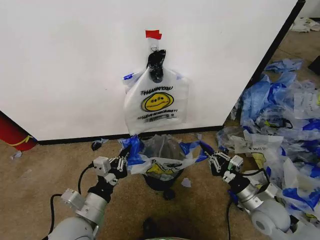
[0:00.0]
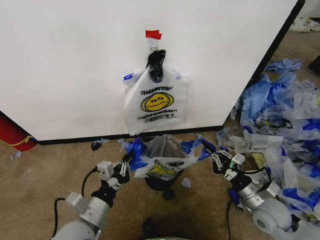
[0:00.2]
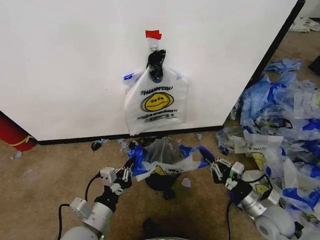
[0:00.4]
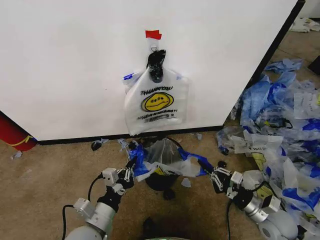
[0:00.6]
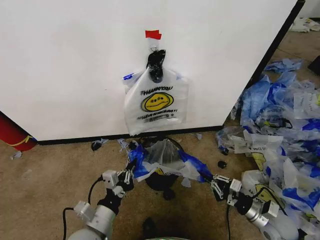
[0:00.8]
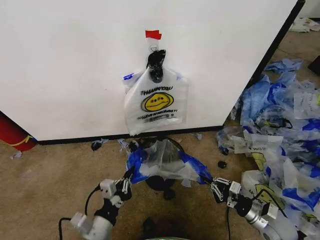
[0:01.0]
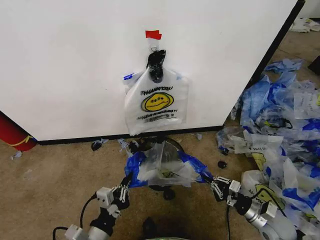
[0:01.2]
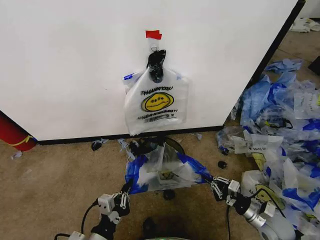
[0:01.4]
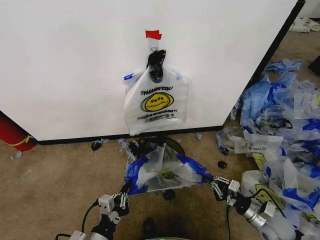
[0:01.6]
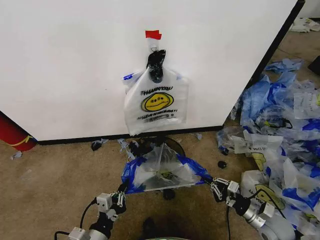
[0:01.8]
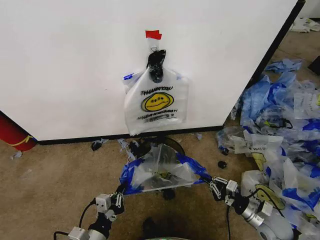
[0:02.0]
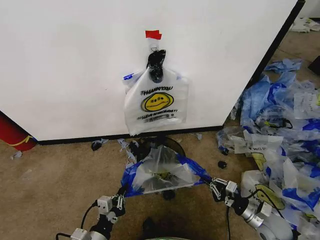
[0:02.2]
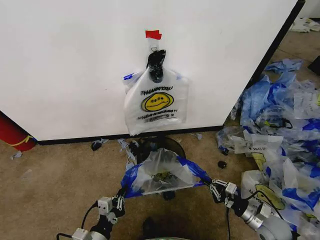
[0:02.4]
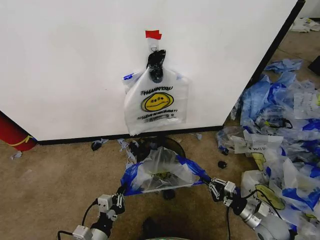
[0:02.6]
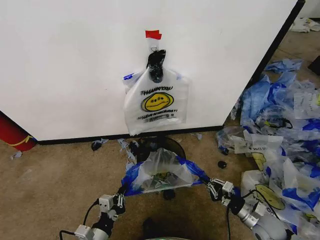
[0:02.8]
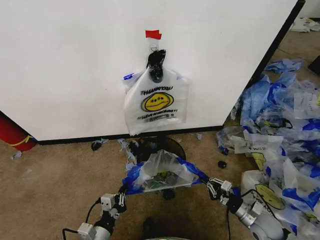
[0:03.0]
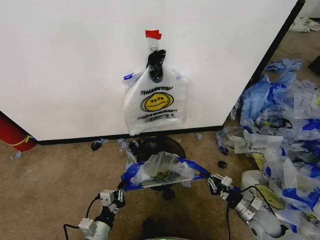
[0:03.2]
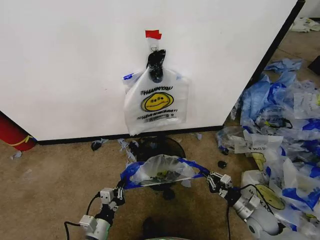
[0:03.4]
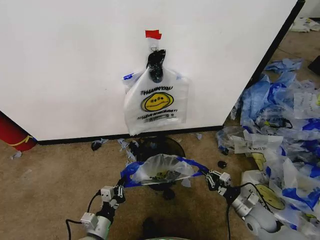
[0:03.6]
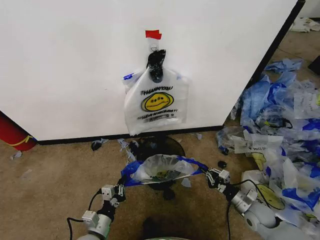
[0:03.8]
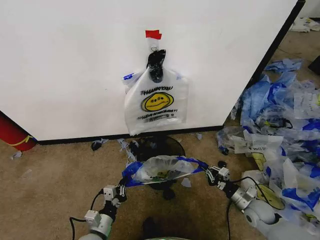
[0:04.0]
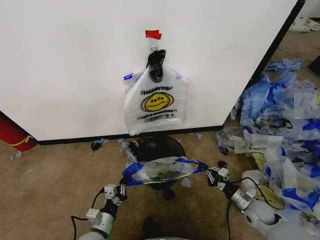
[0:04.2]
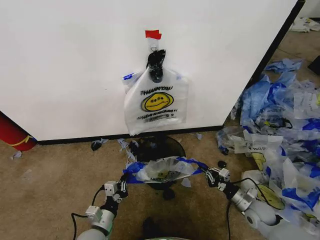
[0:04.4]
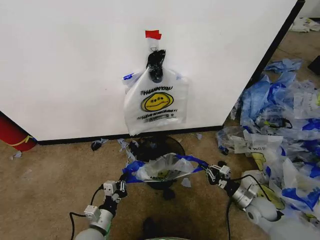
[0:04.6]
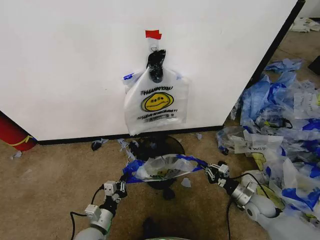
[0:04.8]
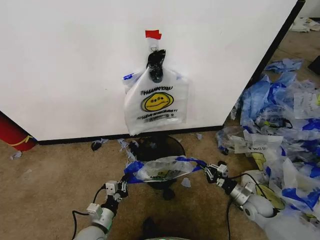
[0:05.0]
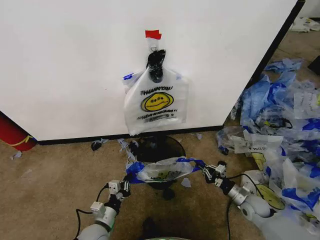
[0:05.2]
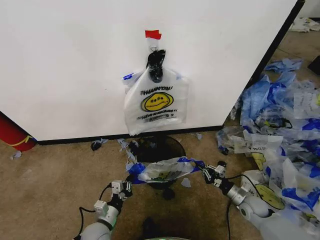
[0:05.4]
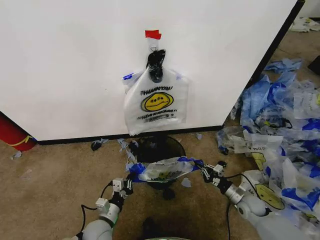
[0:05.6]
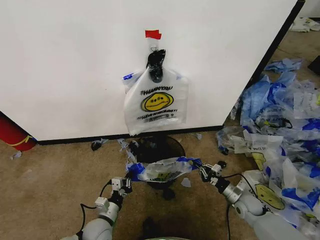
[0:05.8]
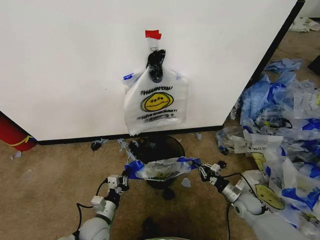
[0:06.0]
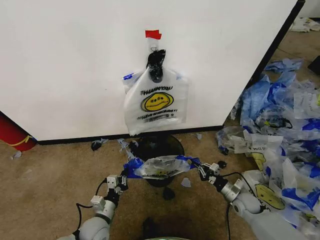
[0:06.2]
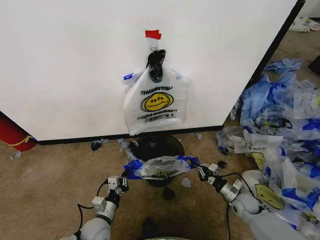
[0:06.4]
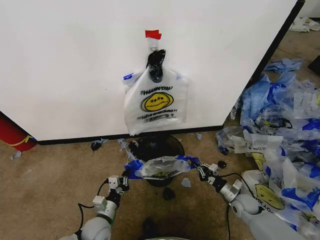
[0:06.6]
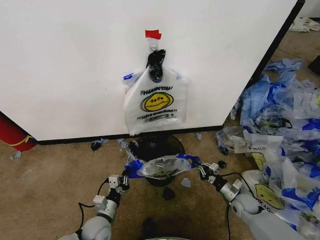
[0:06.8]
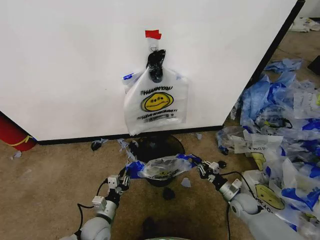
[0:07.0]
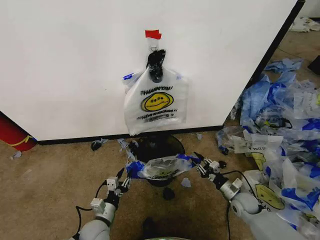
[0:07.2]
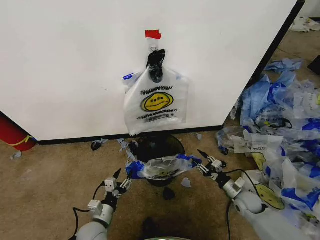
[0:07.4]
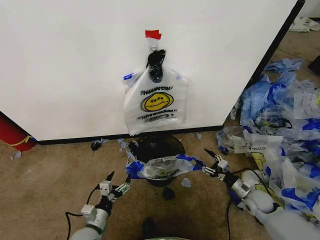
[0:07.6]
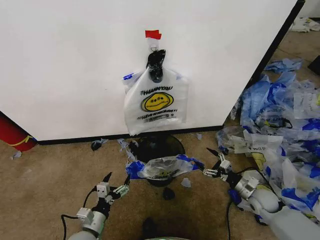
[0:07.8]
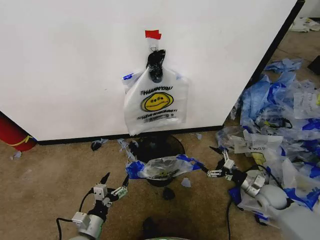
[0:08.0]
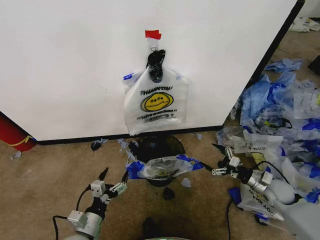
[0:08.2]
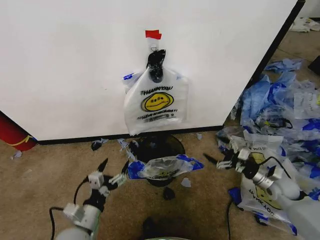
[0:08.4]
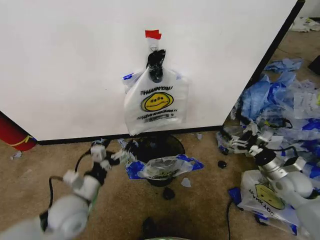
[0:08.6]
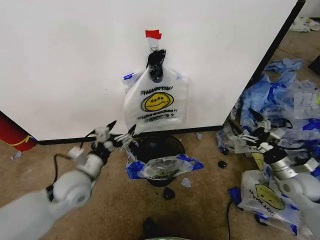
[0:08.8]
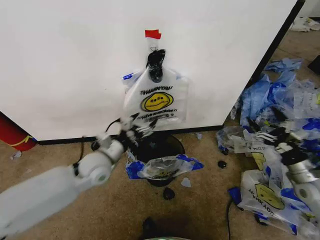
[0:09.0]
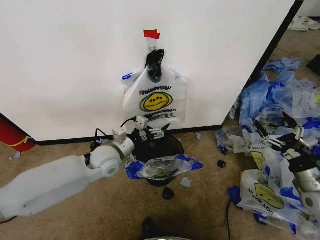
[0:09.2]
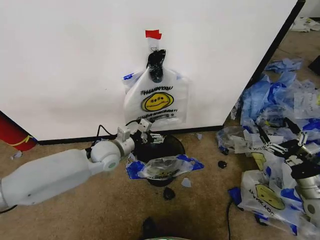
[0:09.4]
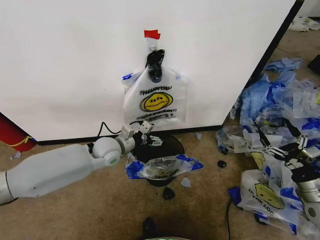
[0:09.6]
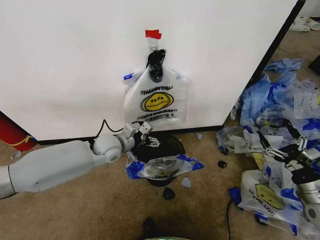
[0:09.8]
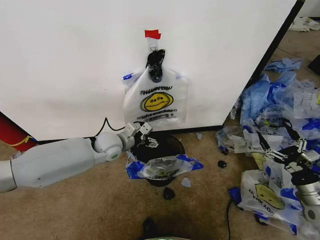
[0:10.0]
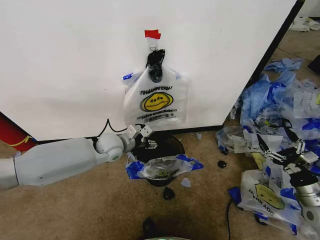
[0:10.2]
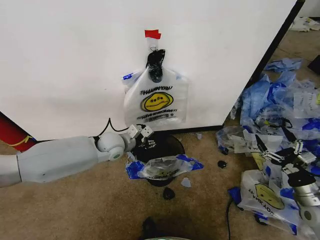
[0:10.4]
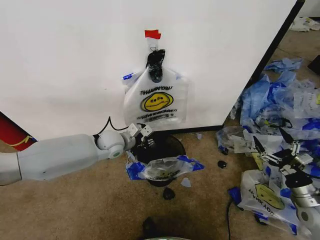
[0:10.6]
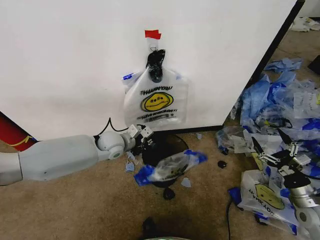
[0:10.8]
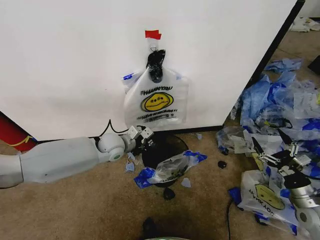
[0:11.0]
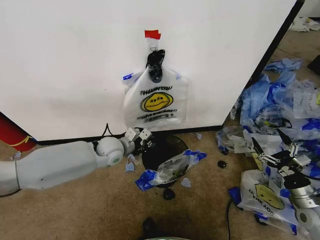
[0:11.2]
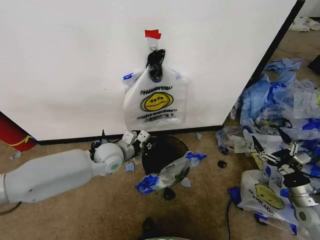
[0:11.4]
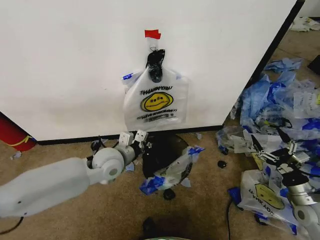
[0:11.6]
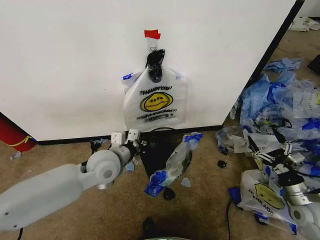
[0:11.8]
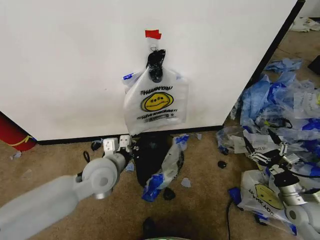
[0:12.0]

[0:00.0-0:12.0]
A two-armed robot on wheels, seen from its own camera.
Task of the whole recording: Pick up the garbage bag from the wall and place it over the trash bin.
0:00.0 to 0:01.6: The right gripper is displaced downward and to the right by about 10 cm. The left gripper travels downward and backward by some 10 cm.
0:01.6 to 0:03.0: The left gripper moves downward, approximately 5 cm.
0:03.0 to 0:04.4: The left gripper shifts approximately 5 cm forward.
0:04.4 to 0:06.0: The right gripper changes place by about 5 cm.
0:06.0 to 0:07.6: The left gripper opens its fingers; the right gripper opens up.
0:07.6 to 0:09.0: The left gripper is displaced upward and forward by roughly 25 cm. The right gripper goes approximately 20 cm upward and to the right.
0:09.0 to 0:10.4: The left gripper travels forward by approximately 10 cm, and closes up. Meanwhile the right gripper is displaced backward by approximately 5 cm.
0:10.4 to 0:12.0: The left gripper travels backward by some 15 cm, and closes its fingers.

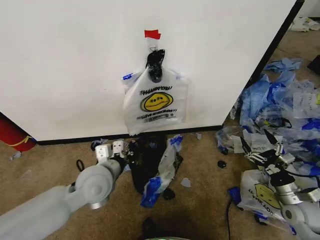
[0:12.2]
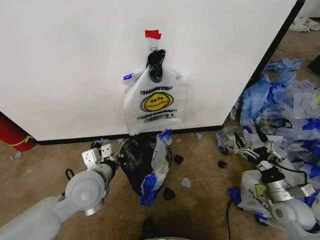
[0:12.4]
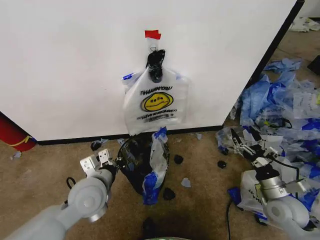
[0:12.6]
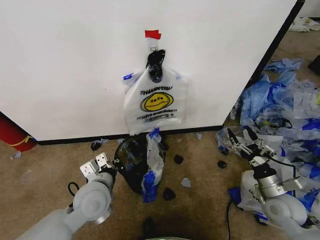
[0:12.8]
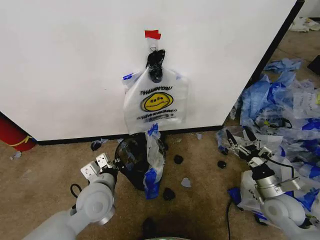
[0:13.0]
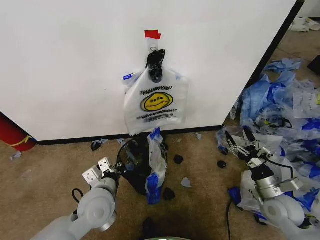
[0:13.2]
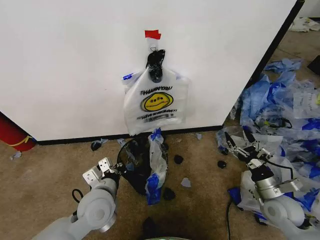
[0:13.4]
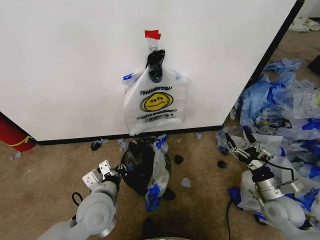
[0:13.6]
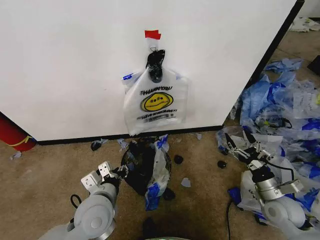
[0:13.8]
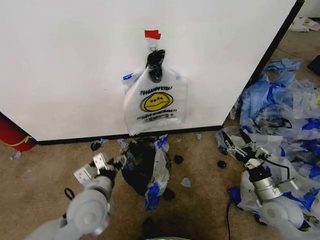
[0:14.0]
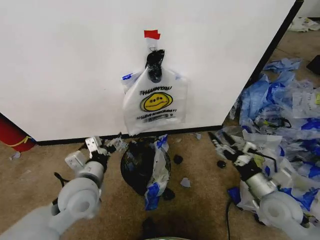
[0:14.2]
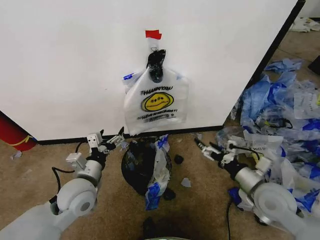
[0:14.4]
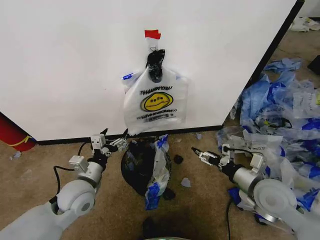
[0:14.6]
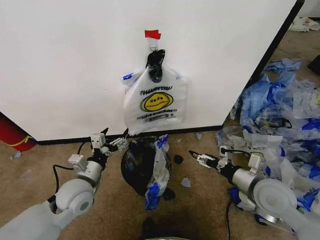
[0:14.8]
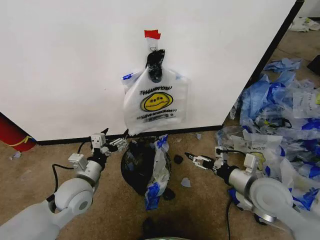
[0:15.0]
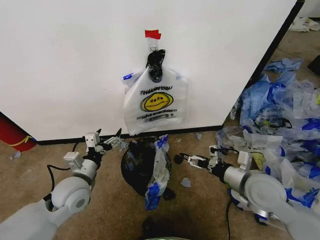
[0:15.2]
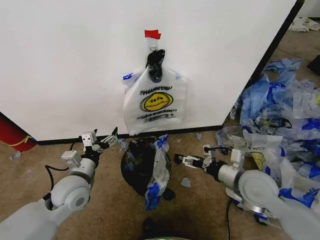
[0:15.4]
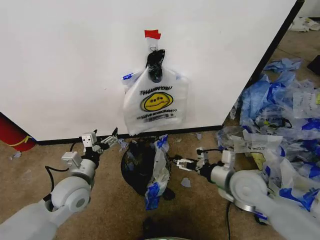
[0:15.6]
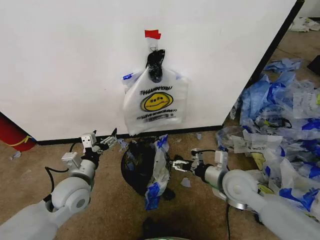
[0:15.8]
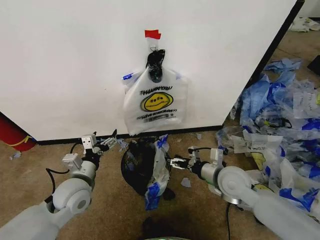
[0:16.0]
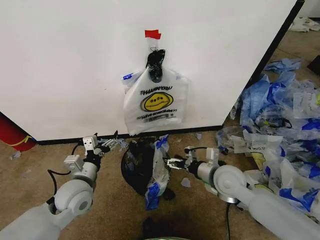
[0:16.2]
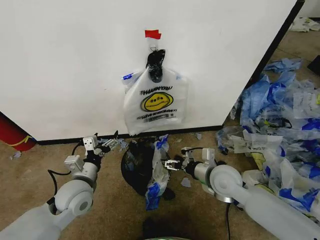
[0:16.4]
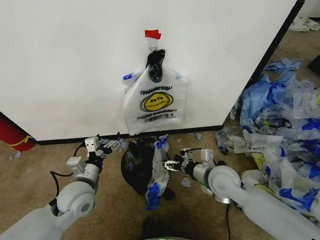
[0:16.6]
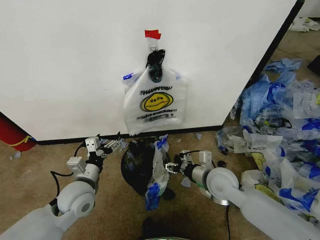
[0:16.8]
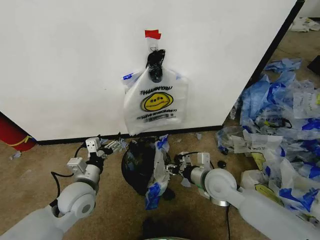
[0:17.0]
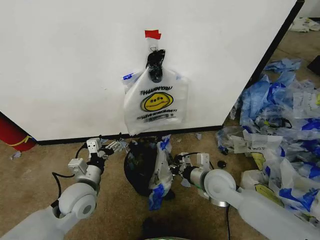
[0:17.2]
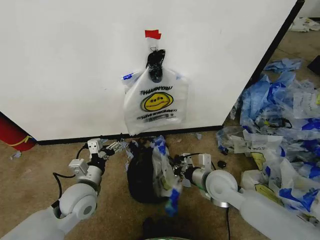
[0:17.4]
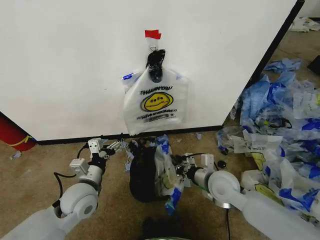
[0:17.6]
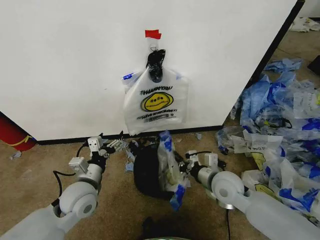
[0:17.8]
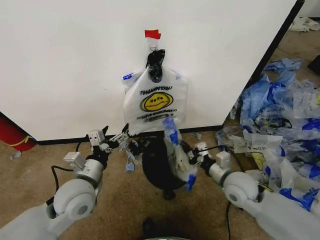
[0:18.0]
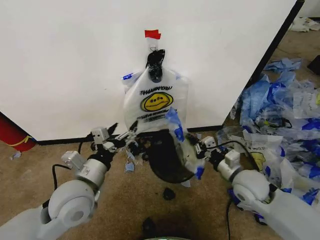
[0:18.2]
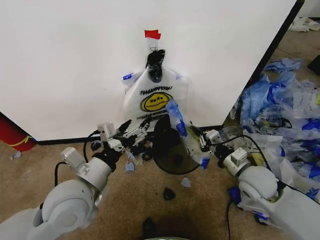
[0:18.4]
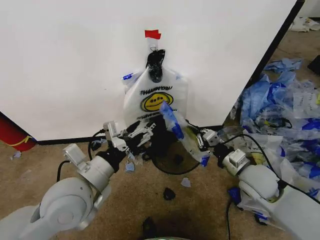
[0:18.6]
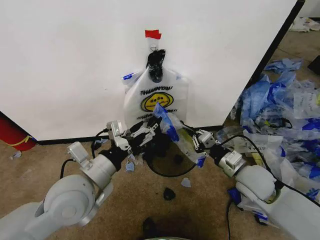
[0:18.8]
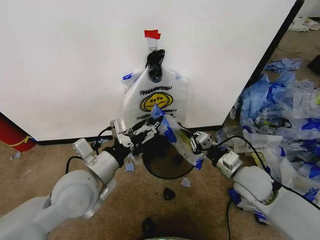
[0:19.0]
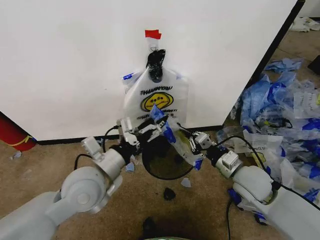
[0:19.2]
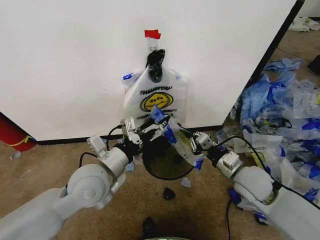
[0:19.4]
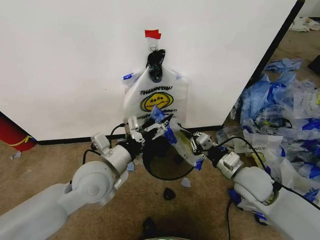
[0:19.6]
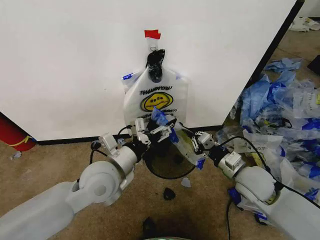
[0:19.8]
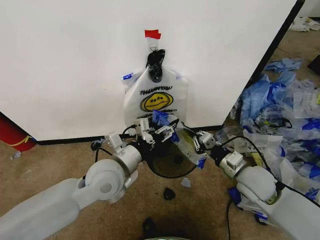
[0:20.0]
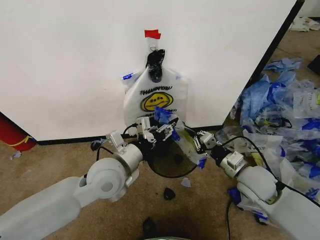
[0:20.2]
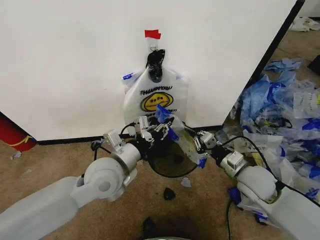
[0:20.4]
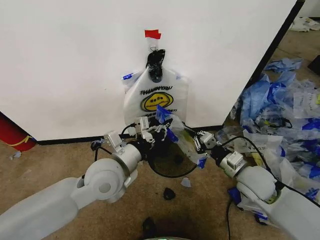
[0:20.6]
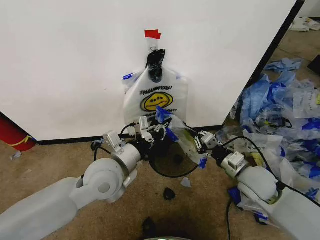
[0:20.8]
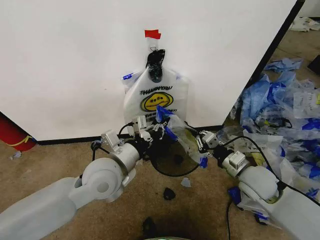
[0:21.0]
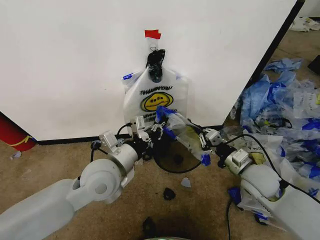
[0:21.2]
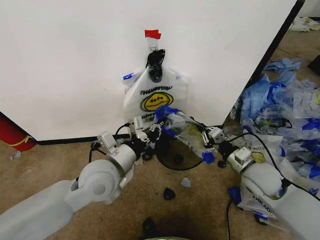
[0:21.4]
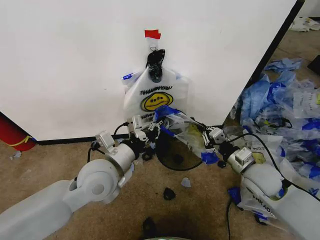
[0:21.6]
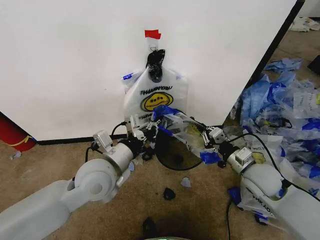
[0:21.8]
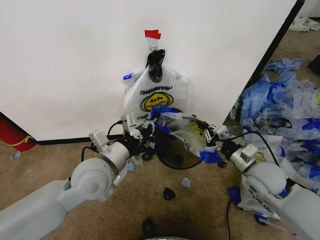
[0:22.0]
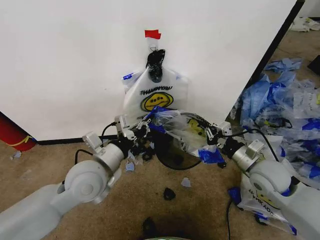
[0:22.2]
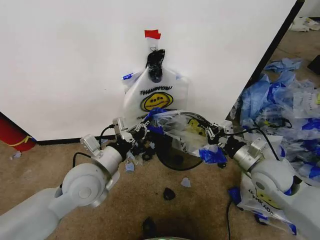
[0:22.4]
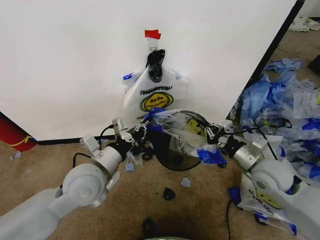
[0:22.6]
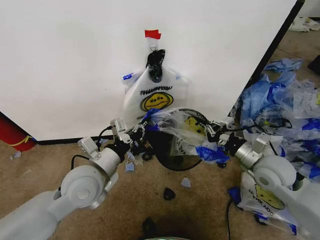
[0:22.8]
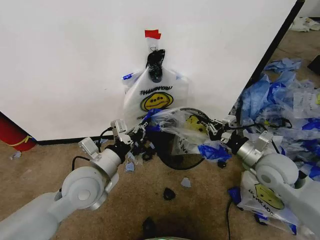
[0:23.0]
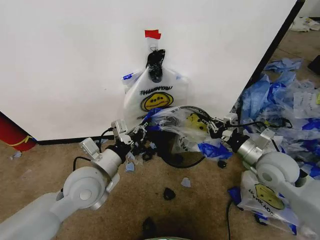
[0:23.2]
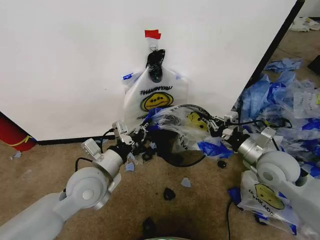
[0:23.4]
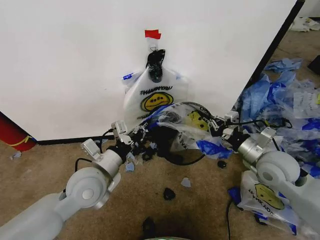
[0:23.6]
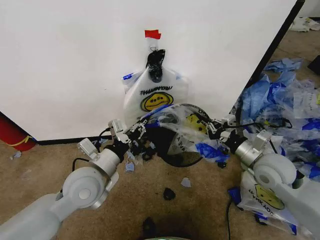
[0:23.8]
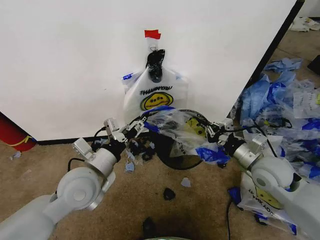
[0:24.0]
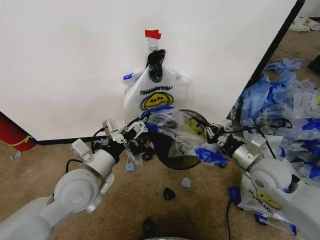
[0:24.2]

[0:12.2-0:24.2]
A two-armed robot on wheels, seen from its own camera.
Task of the whole recording: Pick up the garbage bag from the wall and place it over the trash bin.
0:12.2 to 0:13.8: The right gripper moves to the left, approximately 5 cm; the left gripper goes about 5 cm backward, and opens.
0:13.8 to 0:15.2: The left gripper goes some 10 cm to the left and forward, and opens. Meanwhile the right gripper is displaced upward and to the left by about 15 cm.
0:15.2 to 0:16.6: The right gripper moves to the left, roughly 10 cm.
0:16.6 to 0:18.2: The left gripper is displaced upward by about 5 cm. The right gripper travels to the right by roughly 5 cm, and closes up.
0:18.2 to 0:19.8: The left gripper shifts some 5 cm to the right.
0:19.8 to 0:21.2: The left gripper closes up.
0:22.6 to 0:24.2: The left gripper opens.
